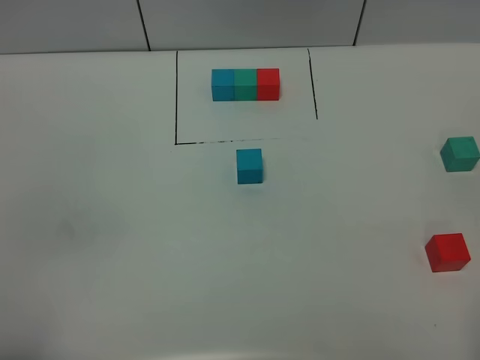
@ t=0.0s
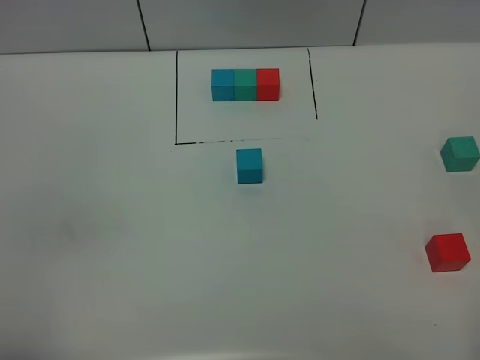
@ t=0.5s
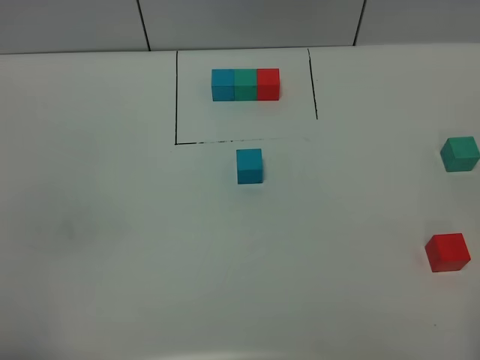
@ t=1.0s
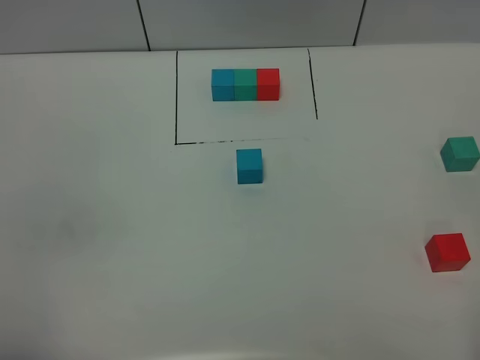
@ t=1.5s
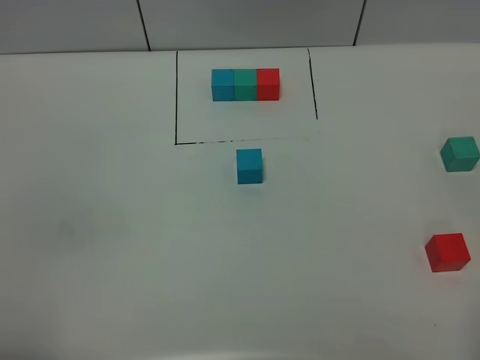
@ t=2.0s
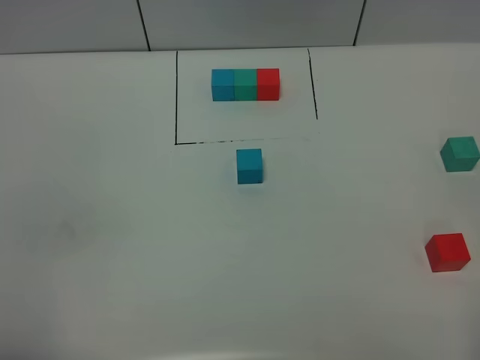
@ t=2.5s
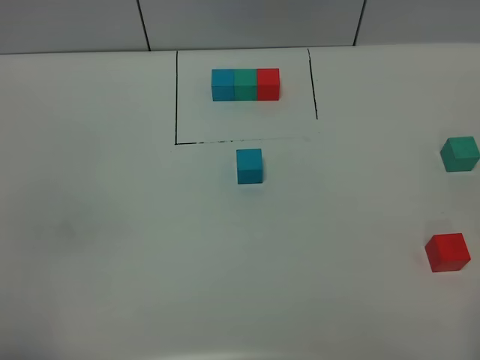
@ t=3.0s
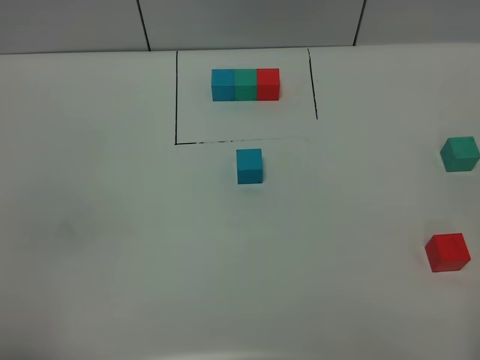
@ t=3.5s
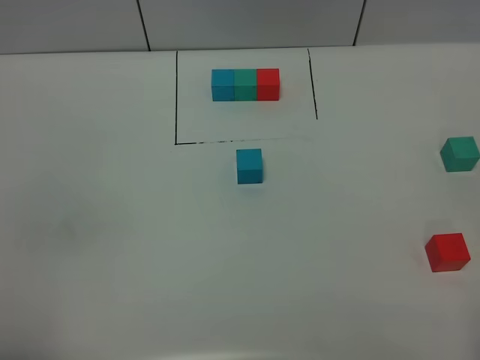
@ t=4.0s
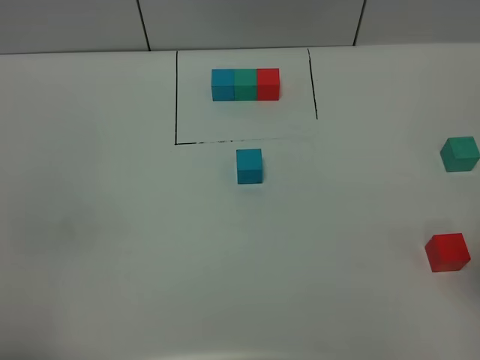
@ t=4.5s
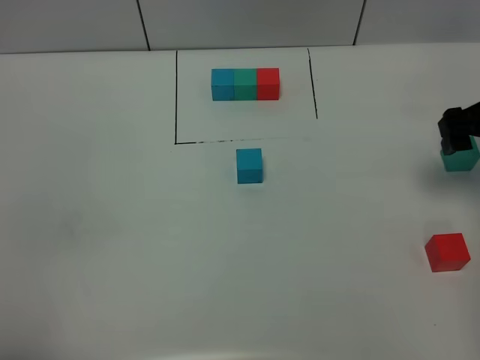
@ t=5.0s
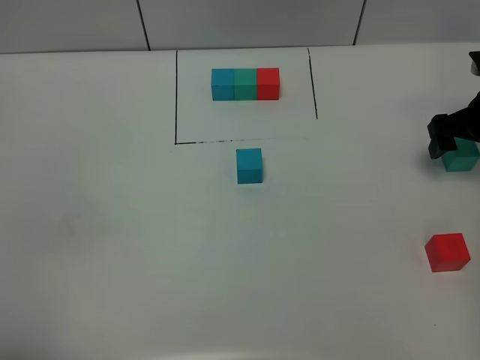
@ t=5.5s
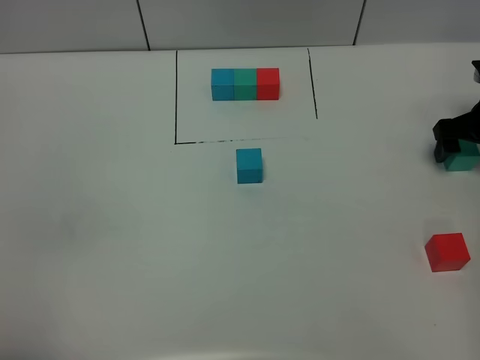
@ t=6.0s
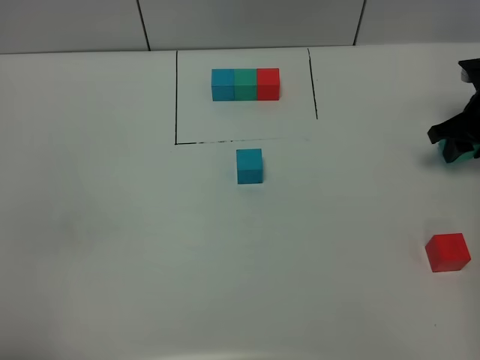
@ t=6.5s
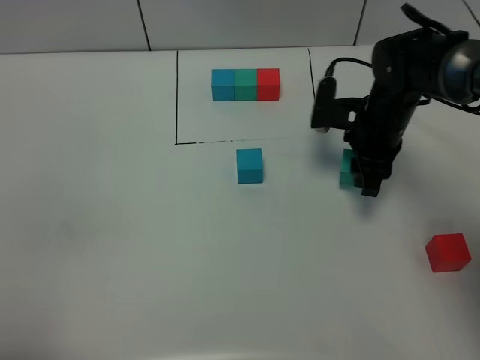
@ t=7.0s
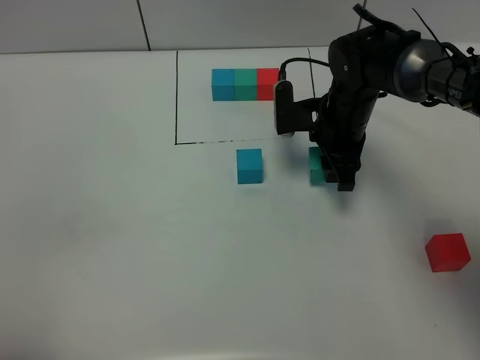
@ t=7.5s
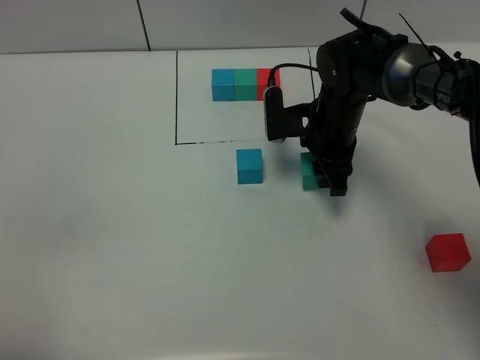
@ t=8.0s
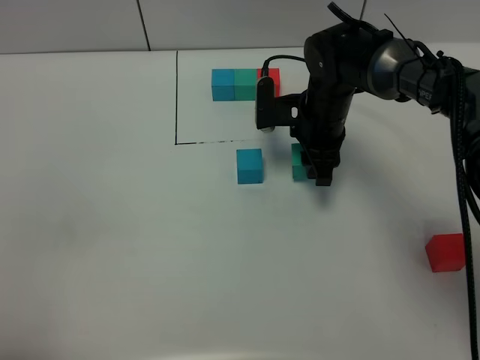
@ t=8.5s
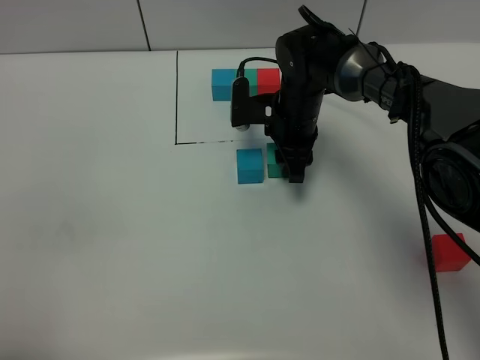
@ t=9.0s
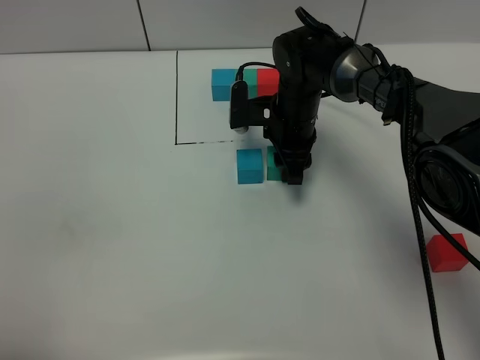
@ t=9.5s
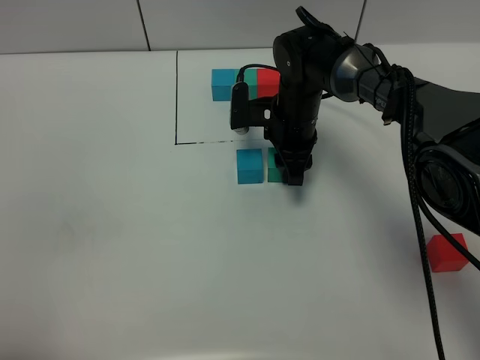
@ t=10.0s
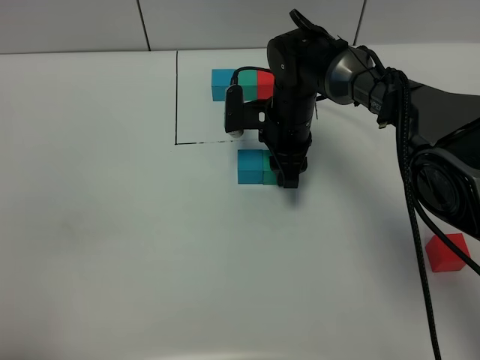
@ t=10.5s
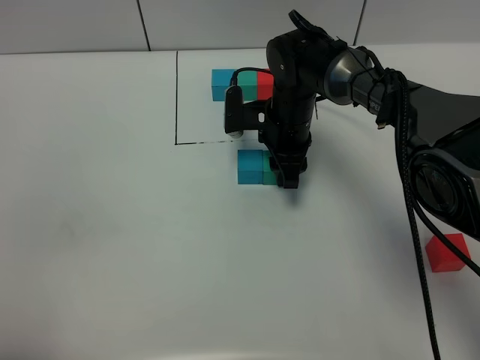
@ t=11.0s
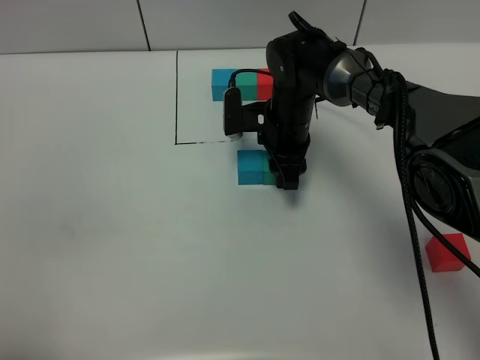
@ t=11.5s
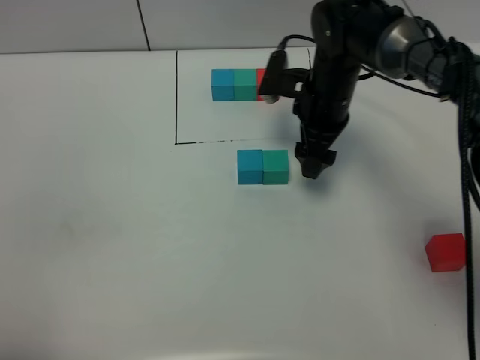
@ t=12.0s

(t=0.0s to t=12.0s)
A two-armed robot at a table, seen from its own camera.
Task of the whole recording: According to the building block template in front, assemble the scattered blocks together.
Step, t=0.0s - t=11.5s: Put the green build block on the right of the blue build block.
t=2.0s - t=4.0s: The two grippers keep their place.
t=4.0s - t=6.0s: The right gripper goes some 40 cm forward.
t=6.0s - t=8.0s: The right gripper is displaced to the left by about 25 cm, and closes.
t=8.0s - t=10.0s: The right gripper shifts by some 5 cm.
t=10.0s - t=12.0s: The right gripper changes place by about 5 cm, and opens.

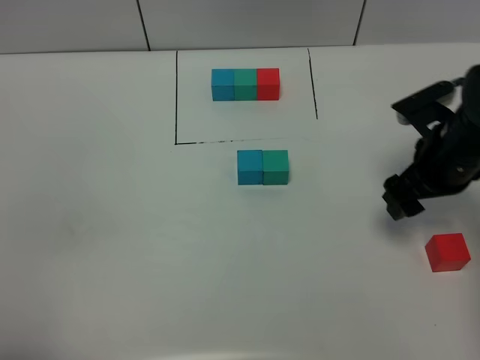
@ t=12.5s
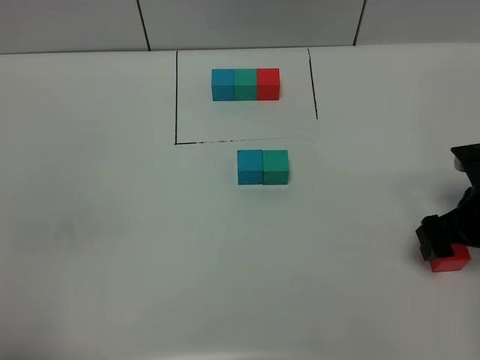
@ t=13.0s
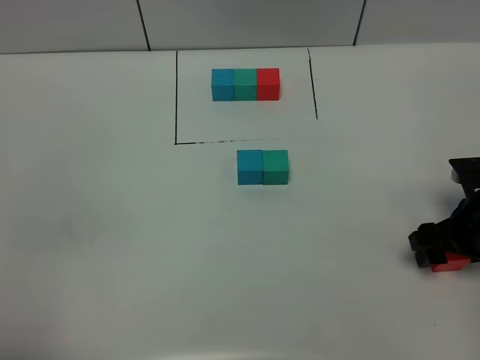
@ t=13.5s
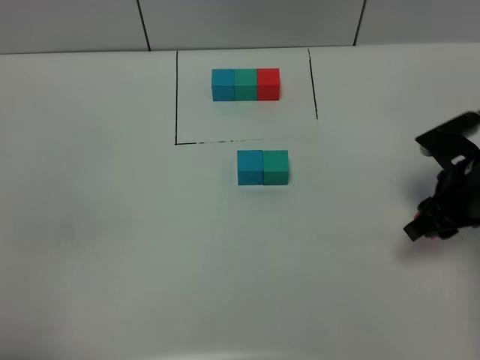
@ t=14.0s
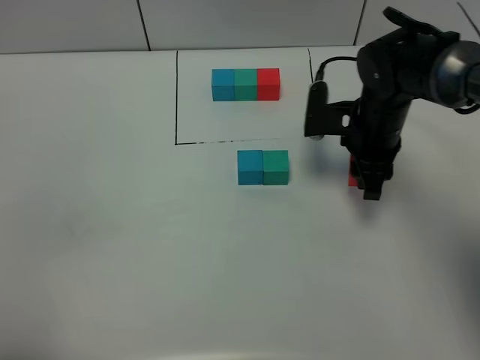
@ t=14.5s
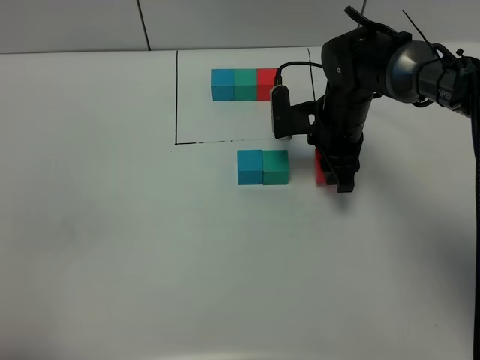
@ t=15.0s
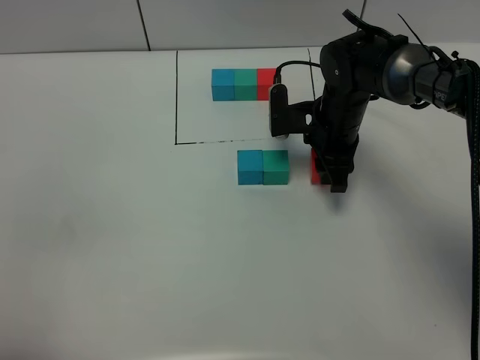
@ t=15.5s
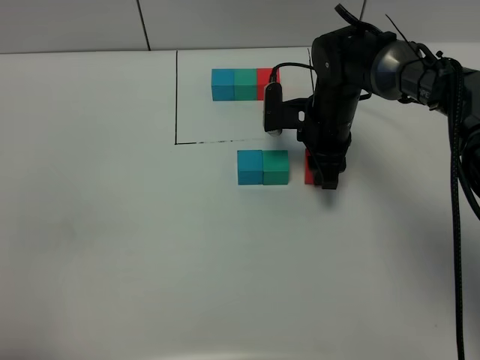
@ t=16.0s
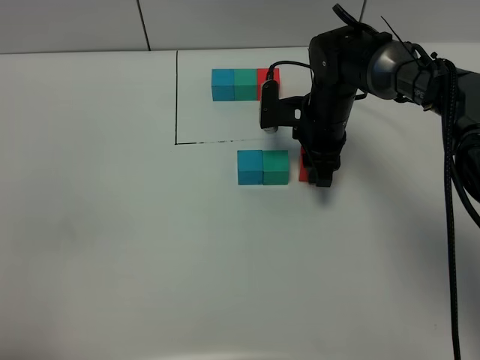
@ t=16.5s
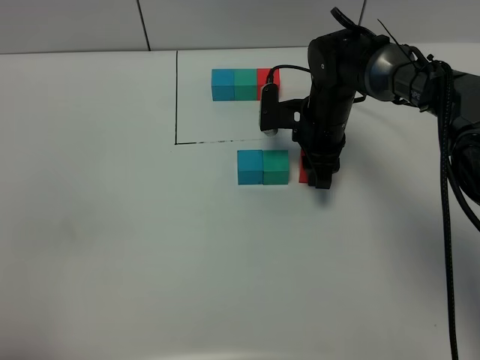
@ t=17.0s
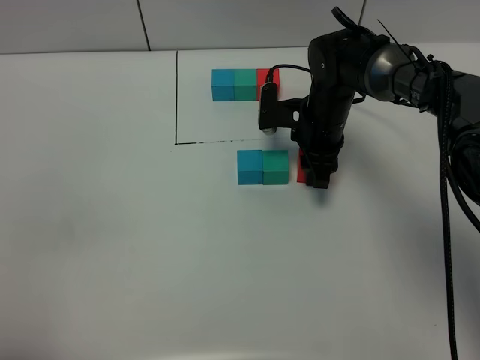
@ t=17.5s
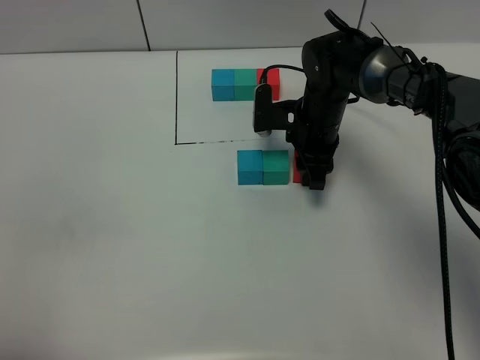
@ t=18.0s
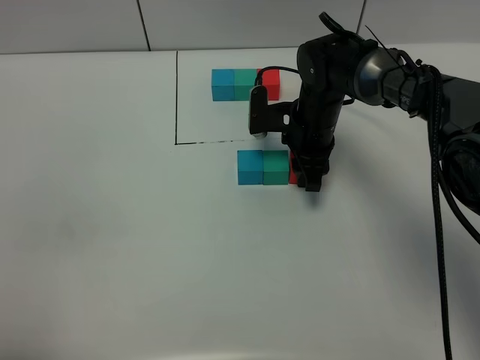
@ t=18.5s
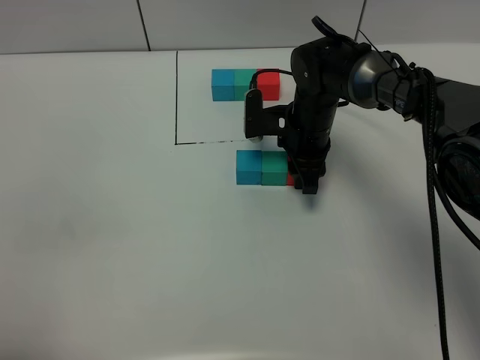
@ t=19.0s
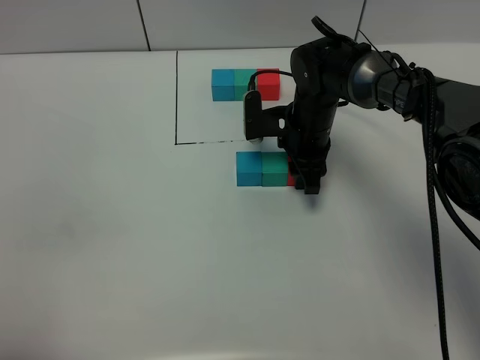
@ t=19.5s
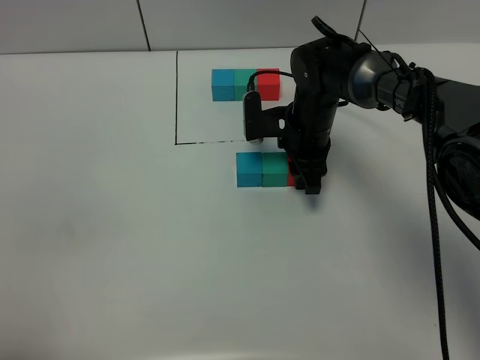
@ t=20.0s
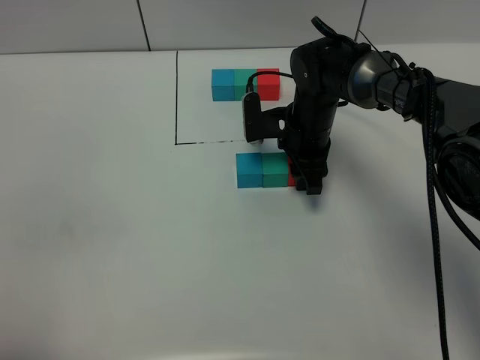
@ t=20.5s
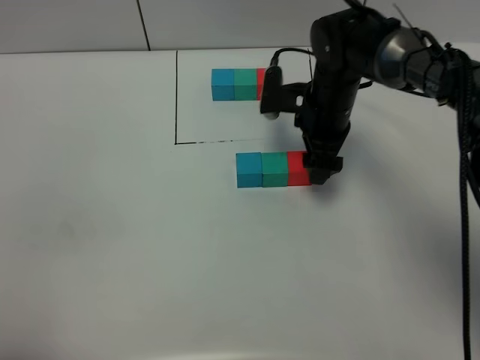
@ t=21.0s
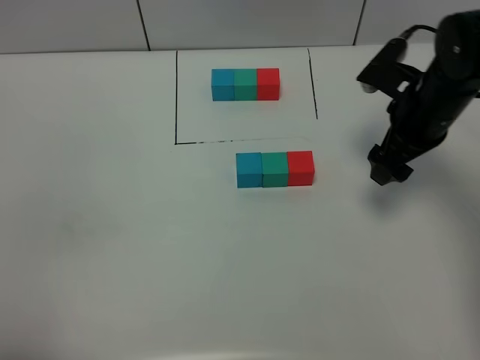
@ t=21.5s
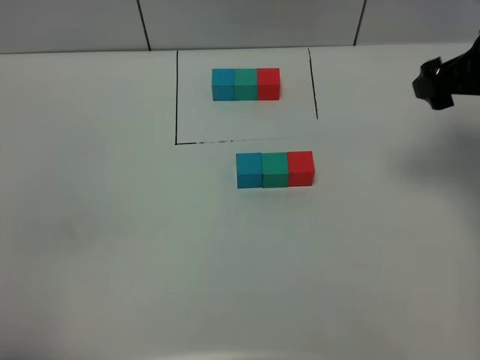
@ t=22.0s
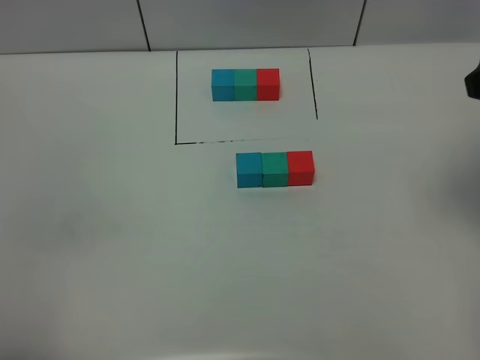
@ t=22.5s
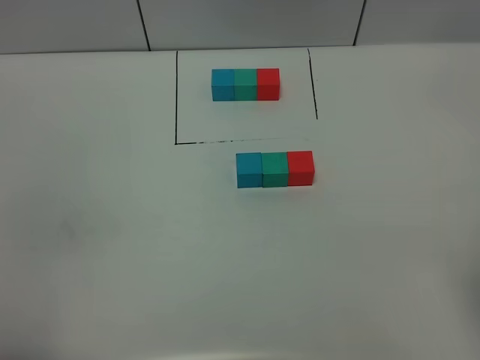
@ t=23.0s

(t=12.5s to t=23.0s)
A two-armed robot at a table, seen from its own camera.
Task of the whole recording: According to the building block template in front, assemble the scattered blocks together.
Step, t=12.5s - t=20.5s: Put the red build block on the right of the green build block.
t=12.5s - t=14.5s: The right gripper shifts about 10 cm to the left and forward, and closes up.
t=14.5s - t=16.5s: The right gripper moves some 5 cm.
t=16.5s - t=19.0s: The grippers make only small movements.
t=19.0s - t=21.0s: The right gripper moves roughly 5 cm, and opens.
t=21.0s - t=23.0s: The right gripper is displaced backward, upward and to the right by approximately 40 cm, and opens its fingers.

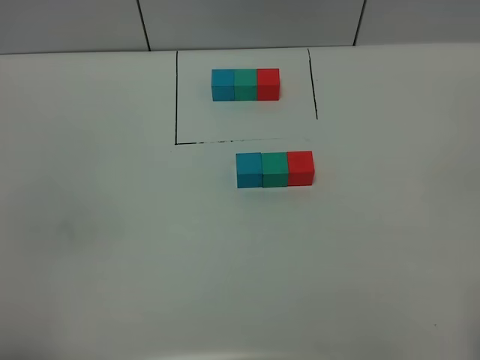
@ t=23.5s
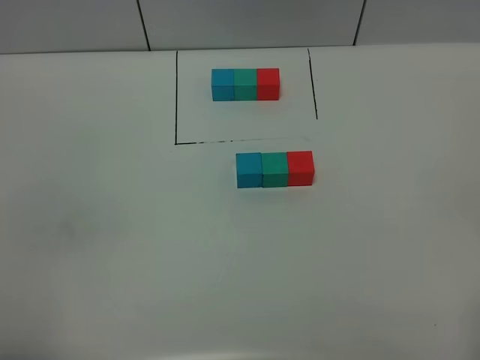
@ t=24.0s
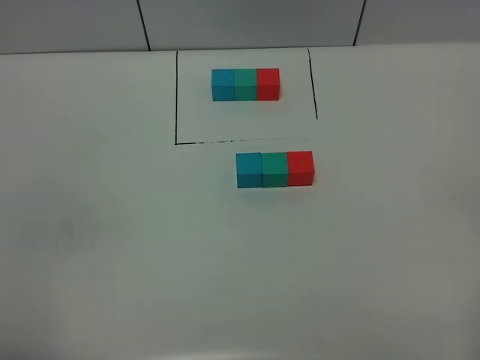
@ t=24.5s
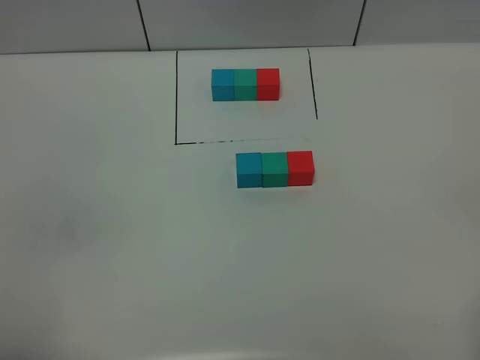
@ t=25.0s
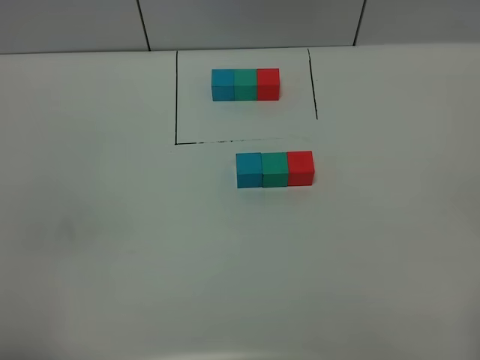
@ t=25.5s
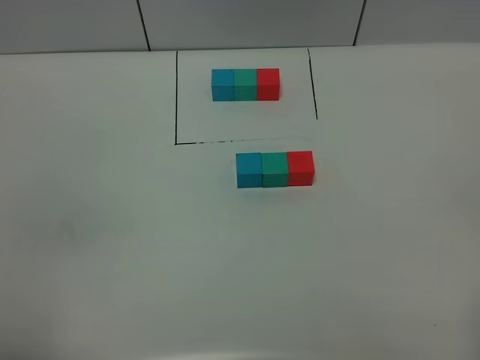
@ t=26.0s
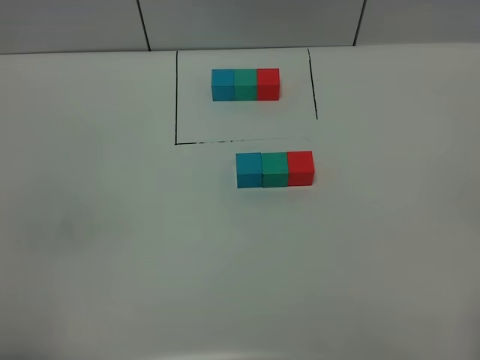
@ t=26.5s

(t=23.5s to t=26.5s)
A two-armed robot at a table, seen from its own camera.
Task of the whole recording: According to the building block template in front, assemble the scattered blocks together.
t=25.0s - t=26.5s: Neither gripper changes place.
